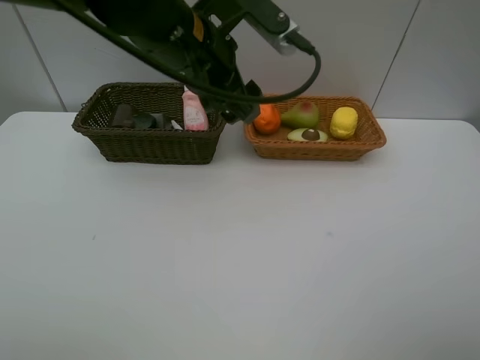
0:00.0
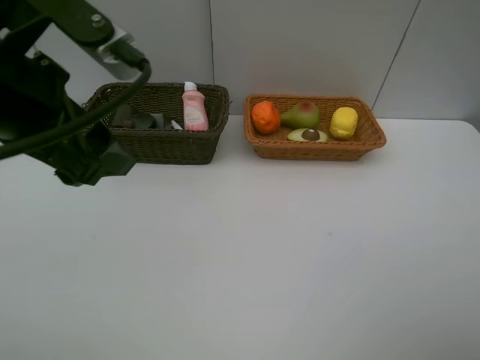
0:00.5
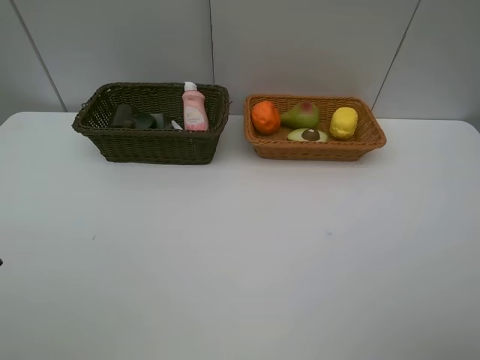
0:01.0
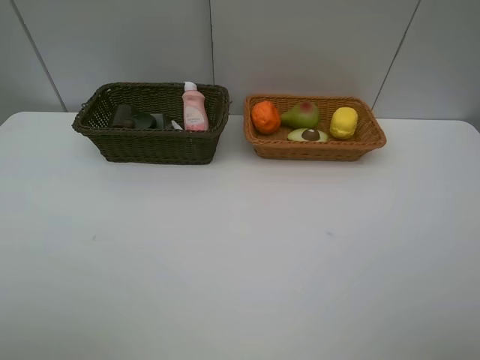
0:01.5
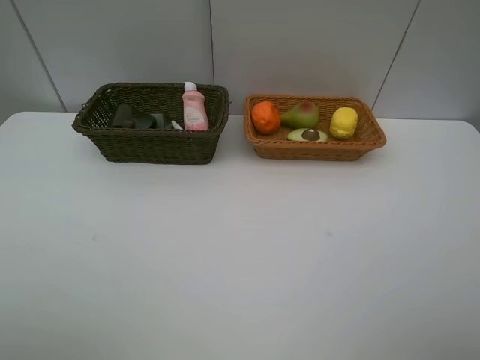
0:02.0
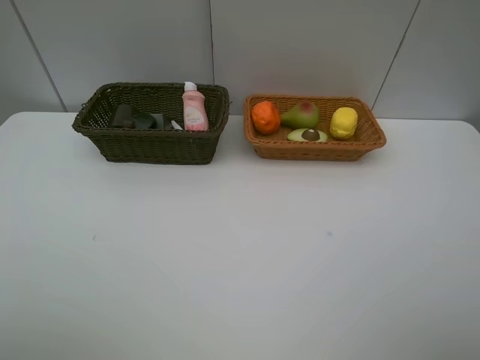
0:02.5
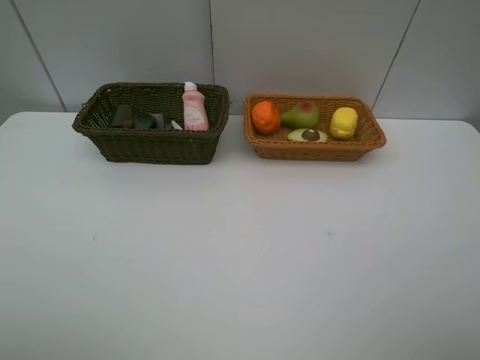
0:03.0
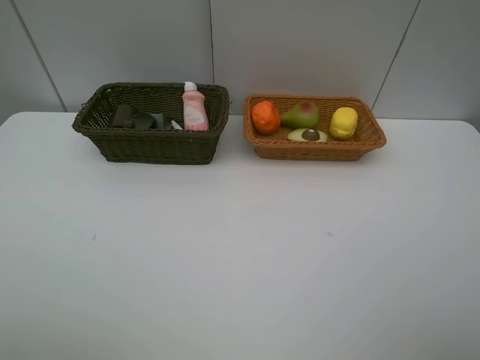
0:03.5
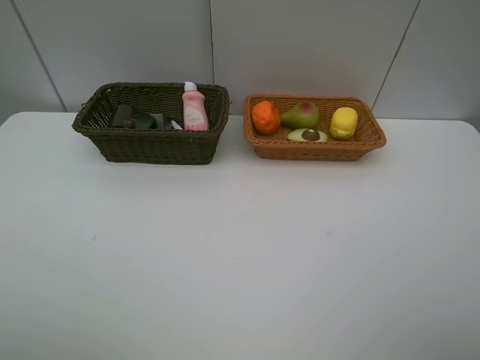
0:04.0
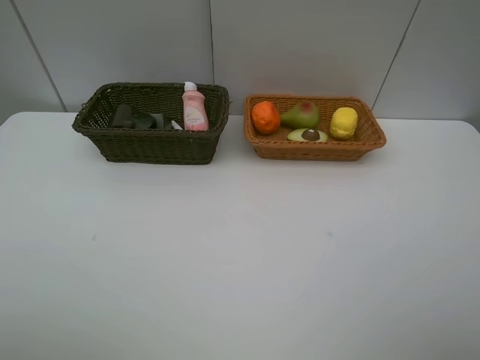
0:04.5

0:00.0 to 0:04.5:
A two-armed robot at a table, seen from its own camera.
Task of the whole recording: Place multiple objects separately in different baskets.
0:00.0 to 0:02.0: The left gripper shifts about 35 cm backward and to the left.

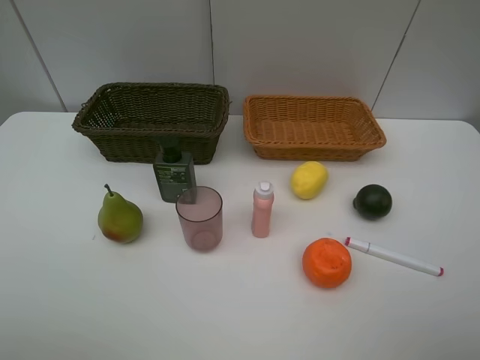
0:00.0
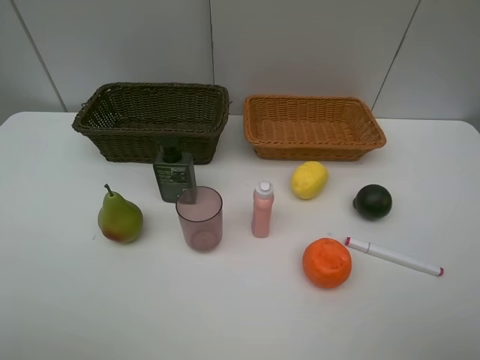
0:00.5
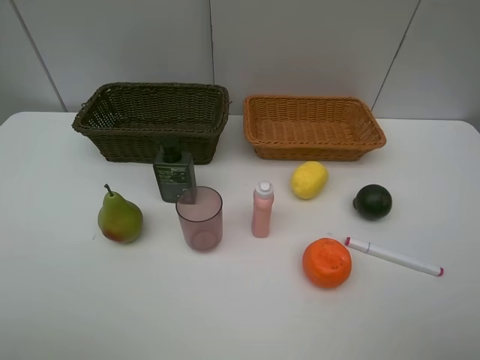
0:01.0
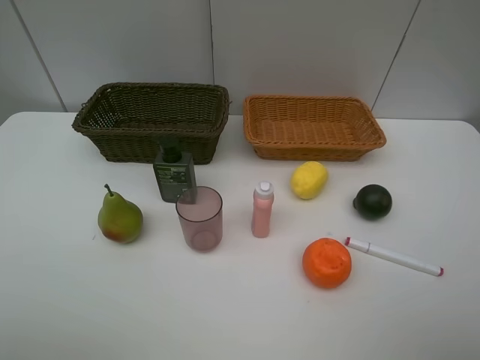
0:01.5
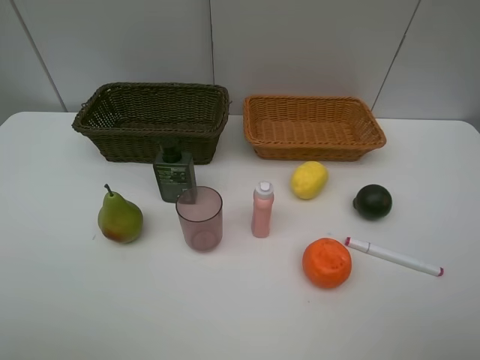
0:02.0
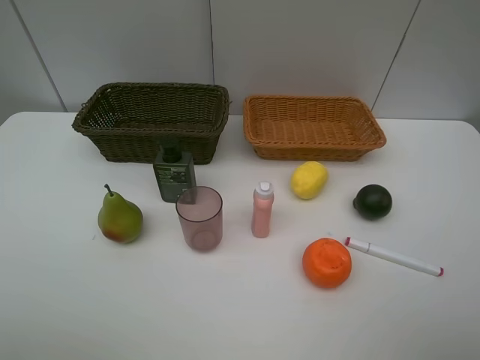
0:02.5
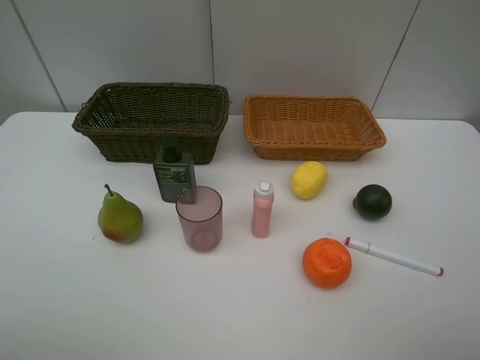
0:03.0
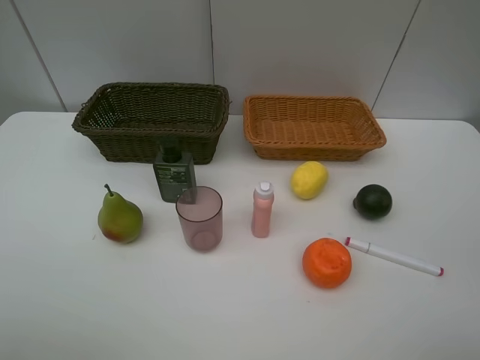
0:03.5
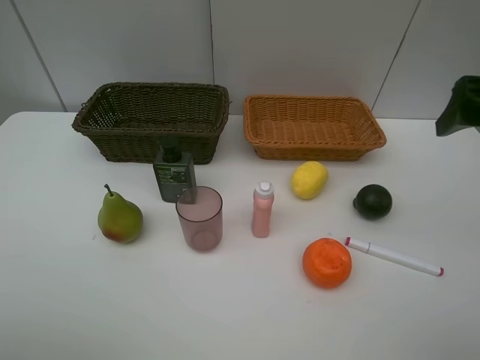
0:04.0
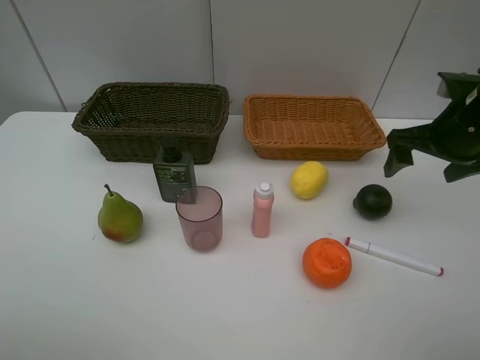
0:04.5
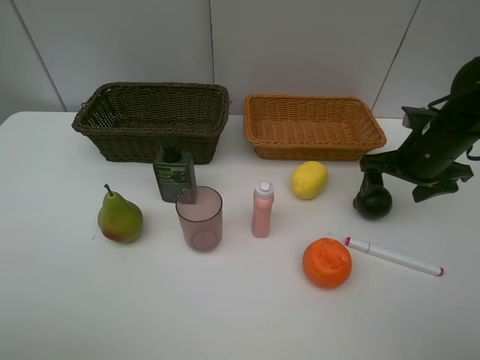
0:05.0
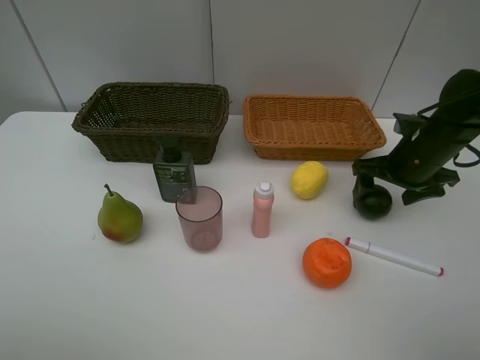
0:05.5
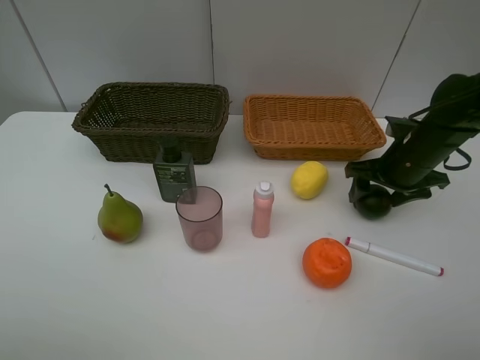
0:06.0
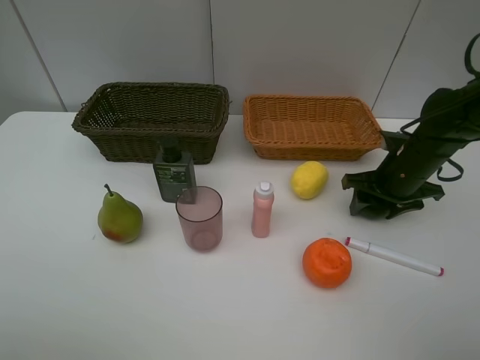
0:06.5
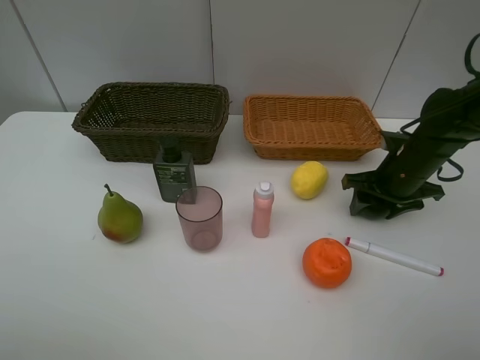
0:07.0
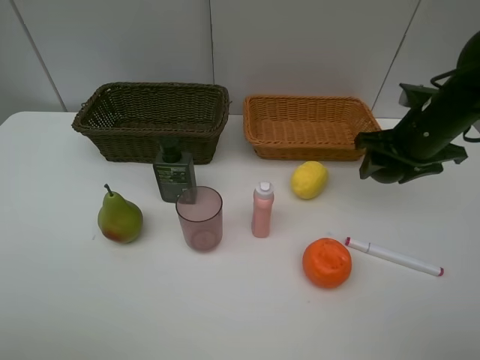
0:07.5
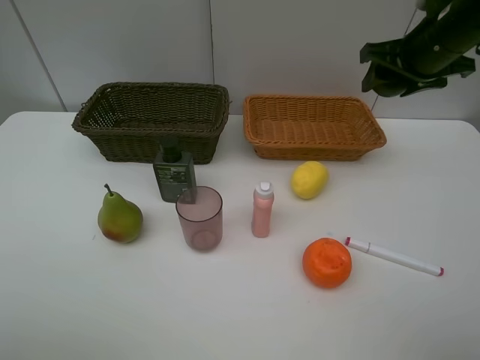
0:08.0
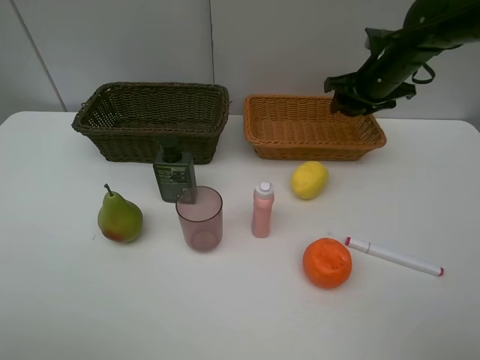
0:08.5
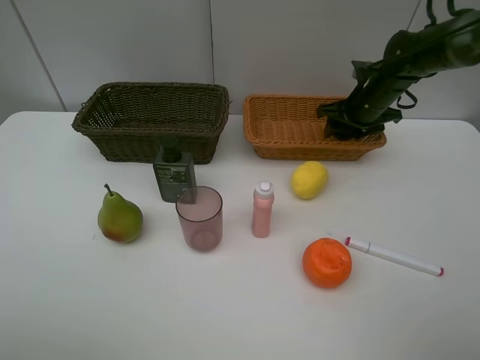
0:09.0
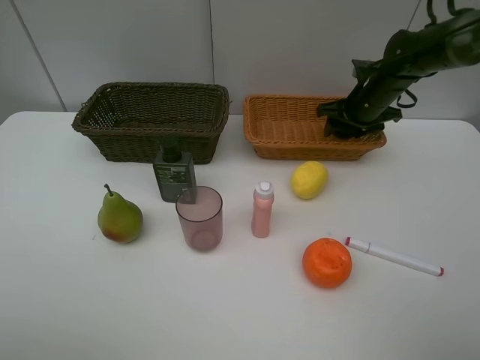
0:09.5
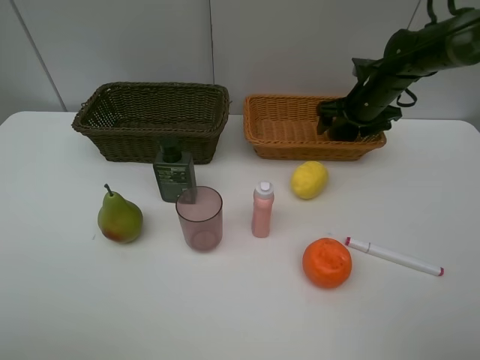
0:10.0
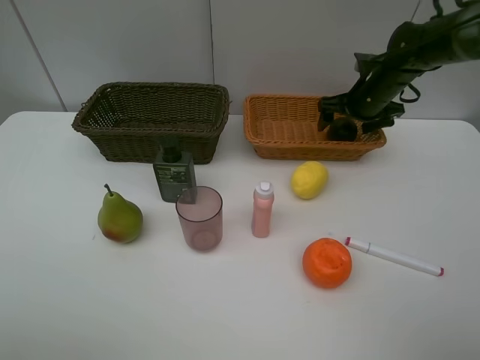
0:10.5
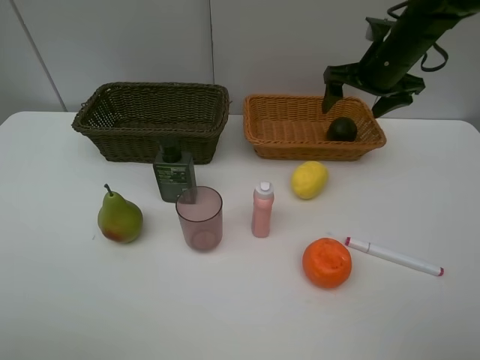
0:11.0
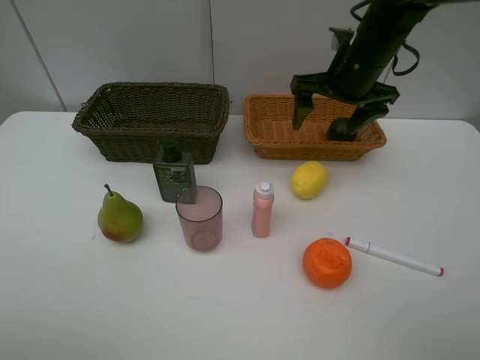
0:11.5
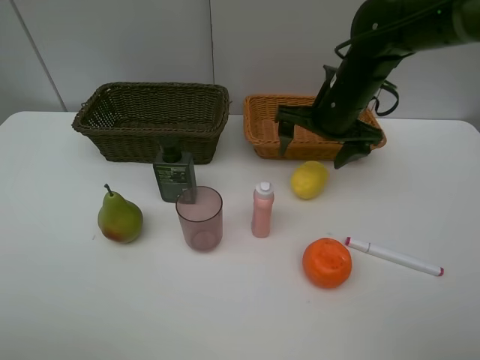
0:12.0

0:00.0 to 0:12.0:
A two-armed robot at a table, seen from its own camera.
Task of the whole recording: Place multiple objects separately in different baskets.
Step, 0:00.0 to 0:07.0: Pick up the mangosteen with right gripper.
Step, 0:07.5 to 0:10.5: Place the mangosteen in the light basket with right gripper.
0:00.0 to 0:02.0: The two grippers keep their place.
0:02.0 to 0:04.0: The right gripper shifts some 20 cm forward.
0:04.0 to 0:06.0: The right gripper travels downward and forward by approximately 20 cm.
0:06.0 to 0:08.0: The right gripper moves upward, approximately 15 cm.
0:08.0 to 0:10.0: The right gripper heads downward and forward, covering approximately 15 cm, and opens its fingers.
0:10.0 to 0:12.0: The right gripper is displaced backward and to the left by about 15 cm.

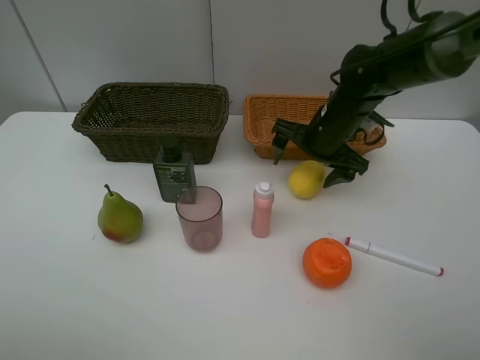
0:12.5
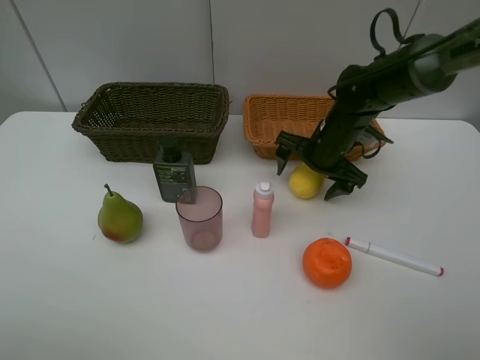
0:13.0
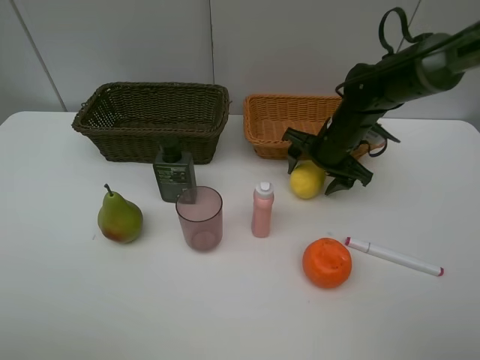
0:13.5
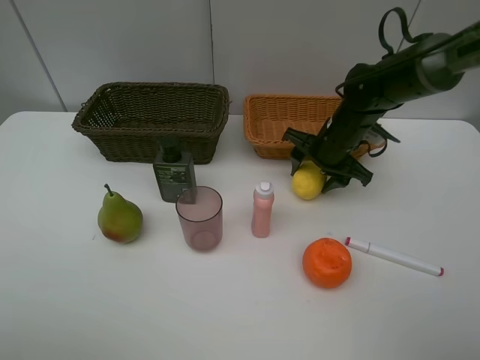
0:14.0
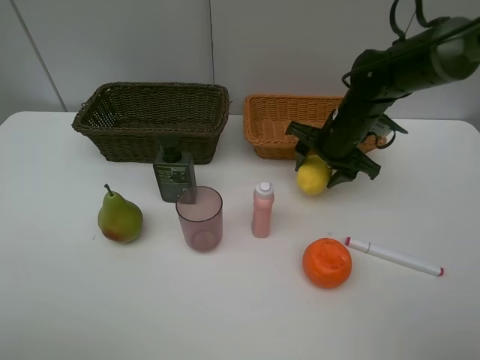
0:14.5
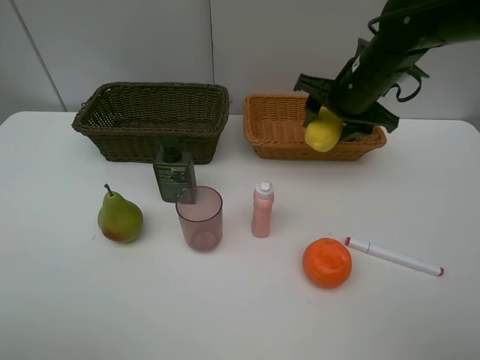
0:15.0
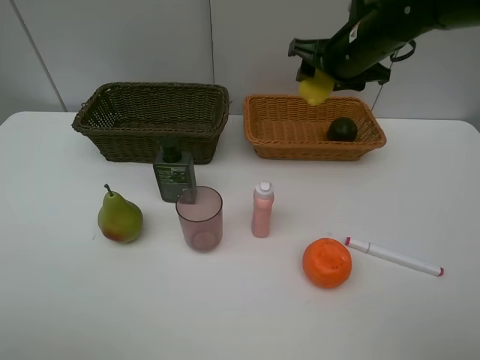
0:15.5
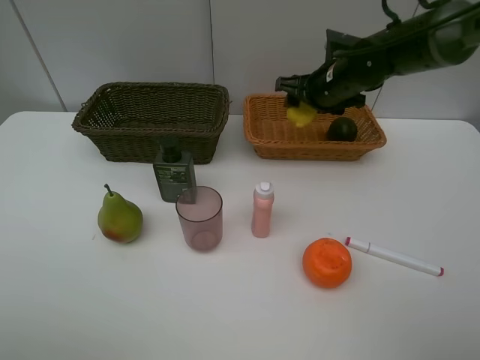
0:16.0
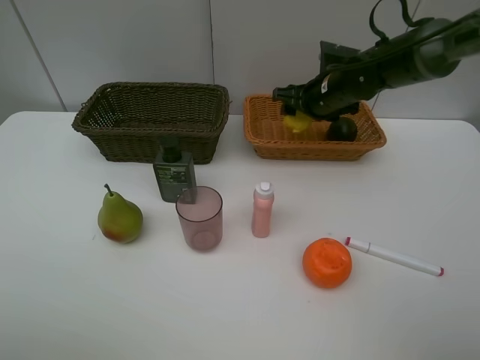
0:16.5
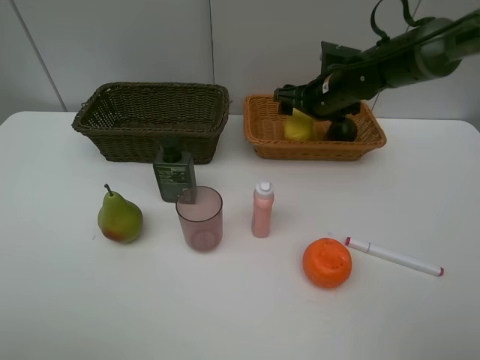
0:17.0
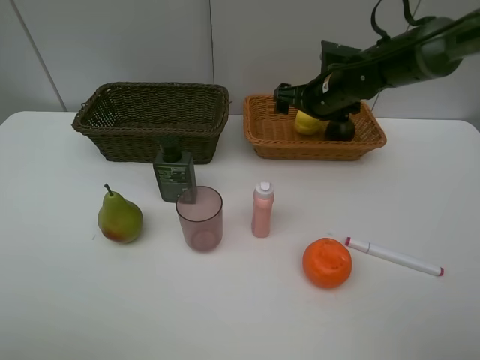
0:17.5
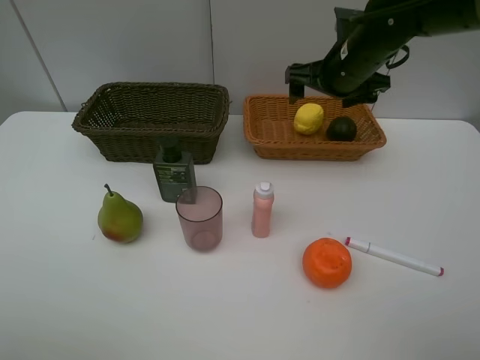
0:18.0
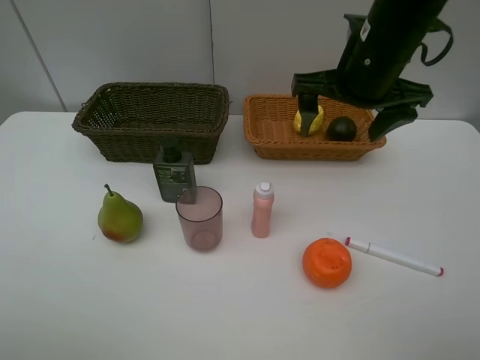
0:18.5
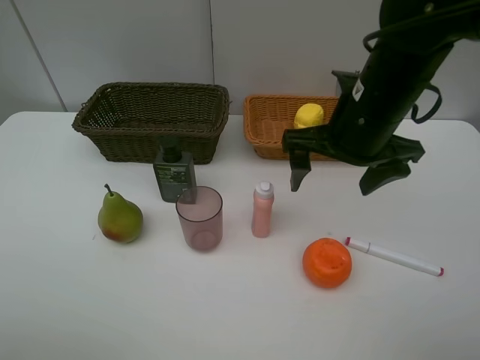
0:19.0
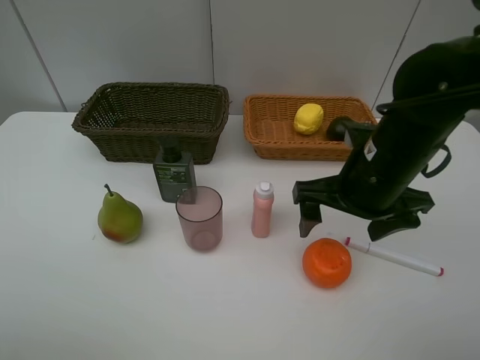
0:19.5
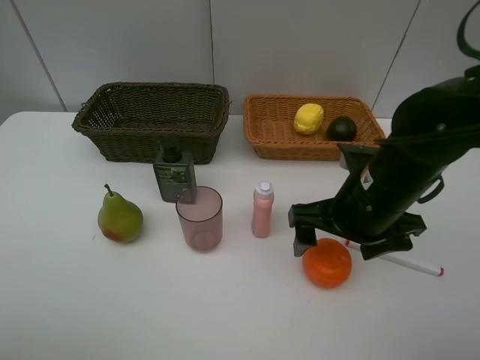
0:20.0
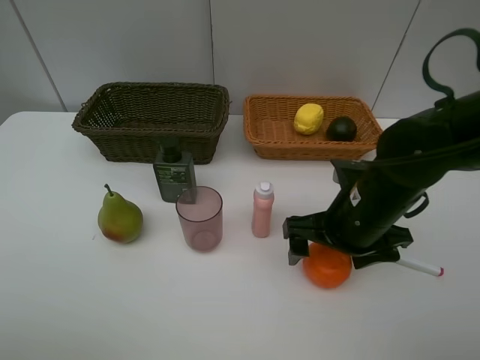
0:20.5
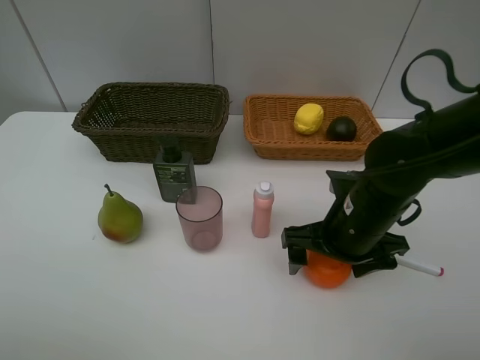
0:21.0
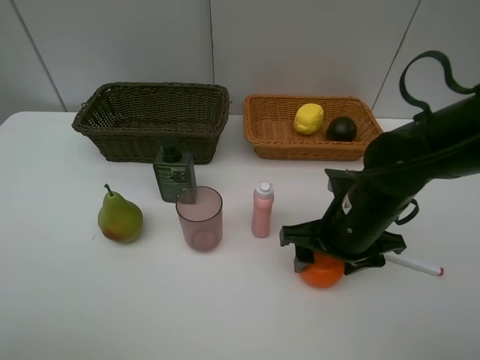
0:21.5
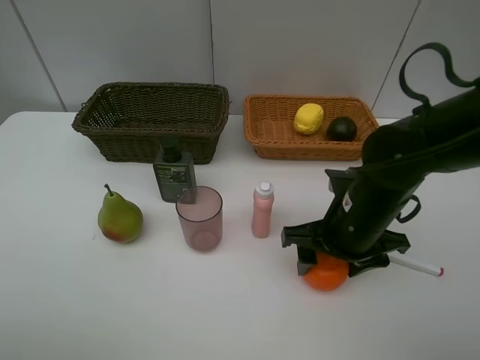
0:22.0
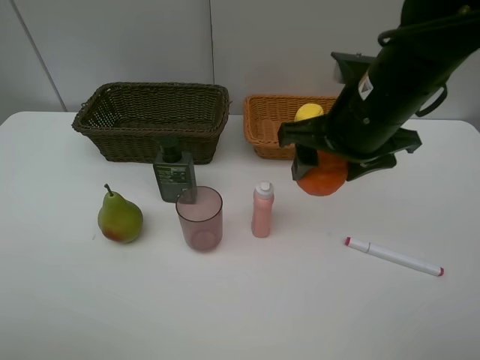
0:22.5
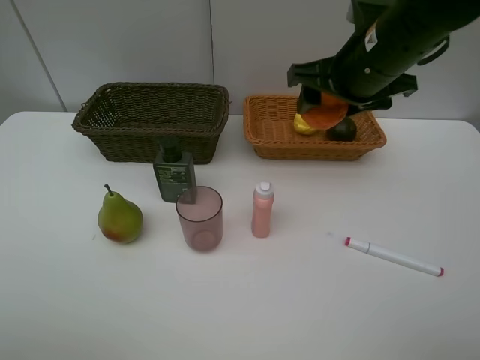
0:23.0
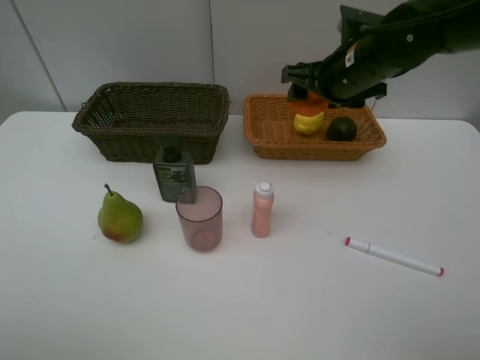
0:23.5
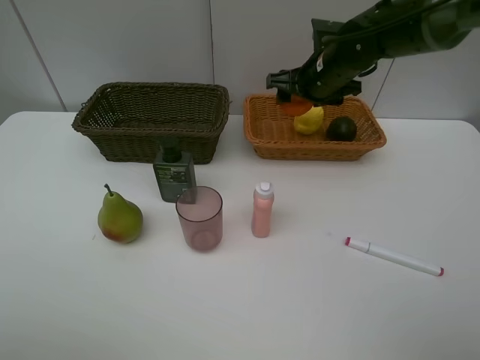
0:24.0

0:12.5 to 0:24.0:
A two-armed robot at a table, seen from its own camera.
Task of the whole recording: Place multiple objects separately in different baskets.
Step, 0:12.5 to 0:14.5: Pick up the lemon with right gripper.
Step, 0:15.0 to 0:17.5: Place the lemon in the light basket with right gripper.
Step, 0:18.0 to 0:22.0: Pick up the orange with right gripper.
0:12.5 to 0:14.5: The right gripper closes.
0:14.5 to 0:16.5: The right gripper moves forward, roughly 5 cm, and moves roughly 10 cm upward and comes back.
0:16.5 to 0:18.5: The right gripper moves backward and upward, some 15 cm, and opens its fingers.
0:18.5 to 0:20.0: The right gripper goes about 15 cm downward and backward.
0:20.0 to 0:22.0: The grippers move only a little.
0:22.0 to 0:24.0: The right gripper is displaced forward by roughly 20 cm.
